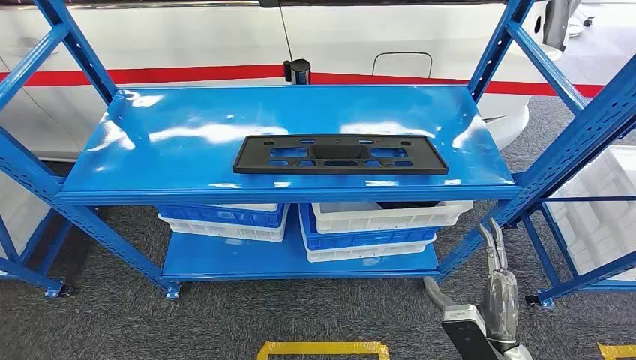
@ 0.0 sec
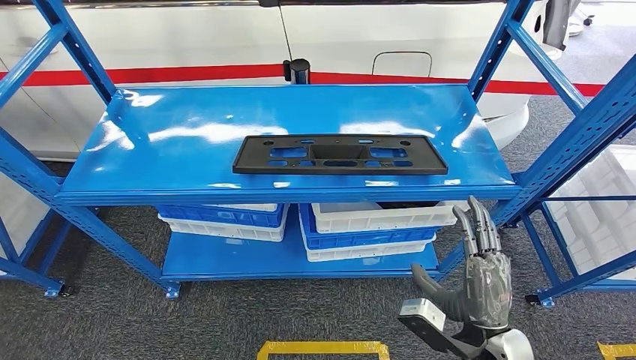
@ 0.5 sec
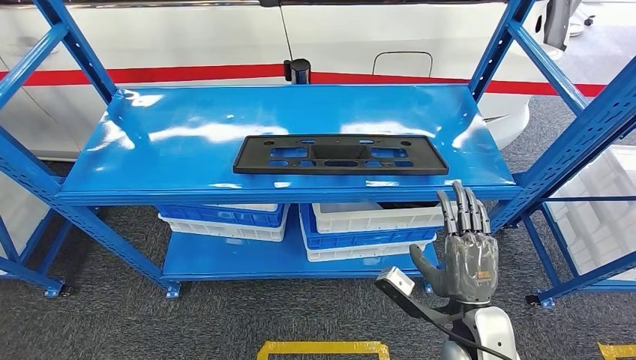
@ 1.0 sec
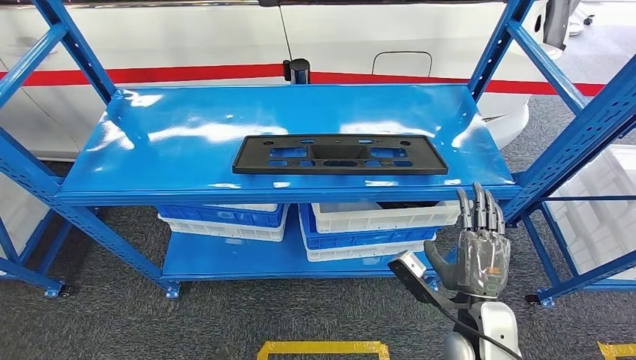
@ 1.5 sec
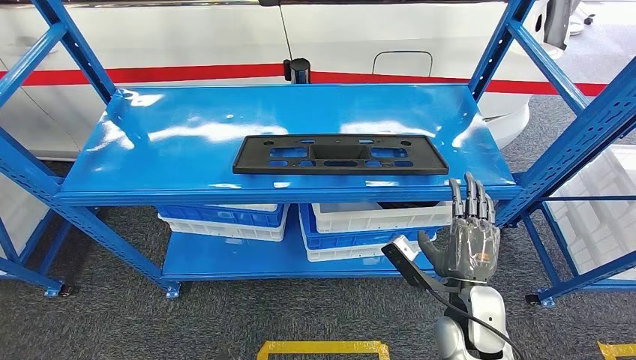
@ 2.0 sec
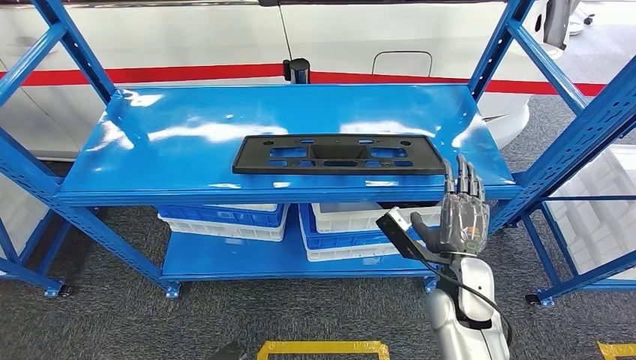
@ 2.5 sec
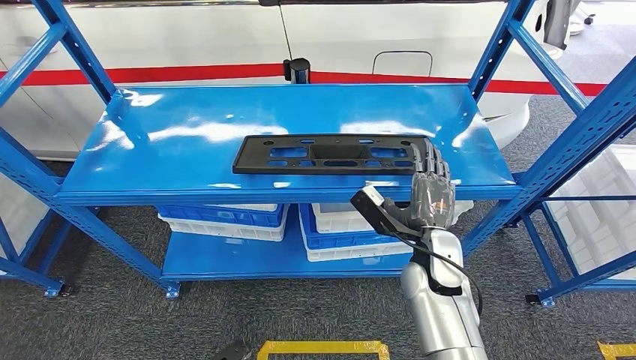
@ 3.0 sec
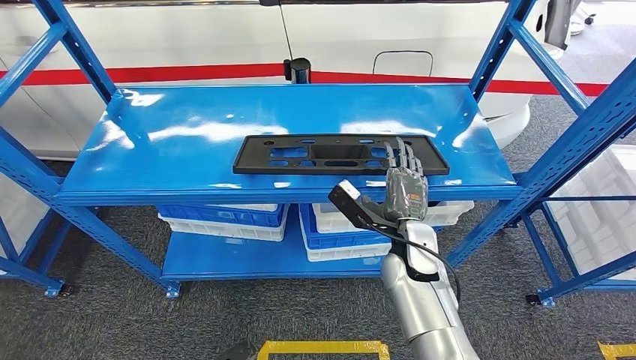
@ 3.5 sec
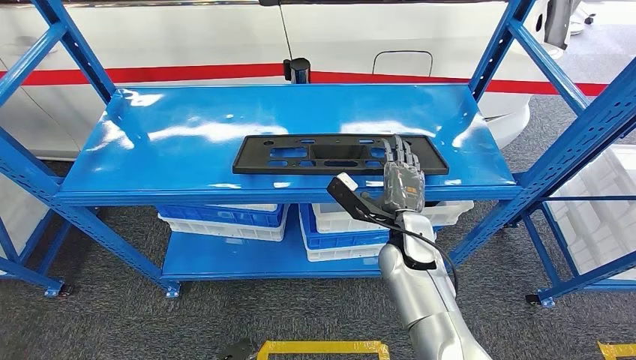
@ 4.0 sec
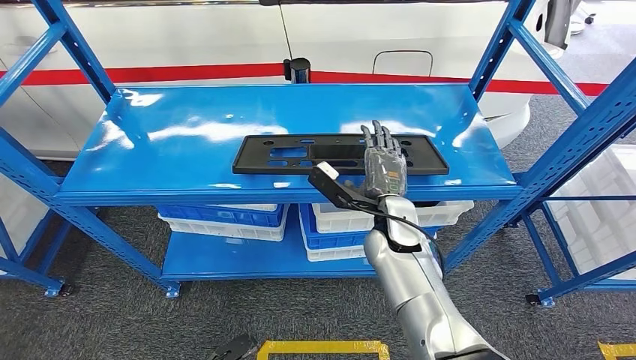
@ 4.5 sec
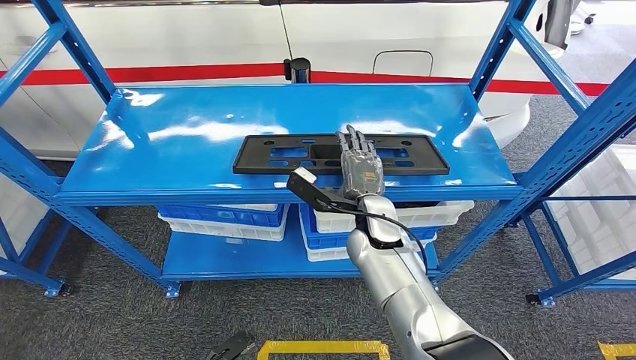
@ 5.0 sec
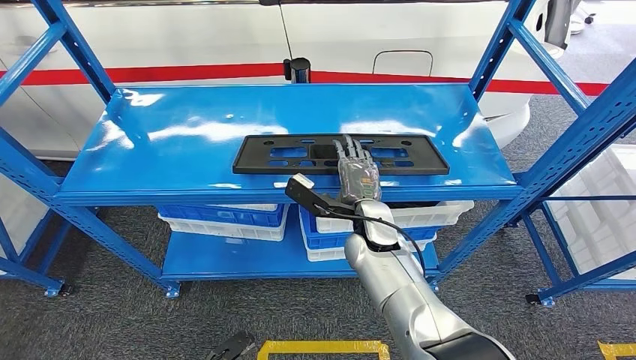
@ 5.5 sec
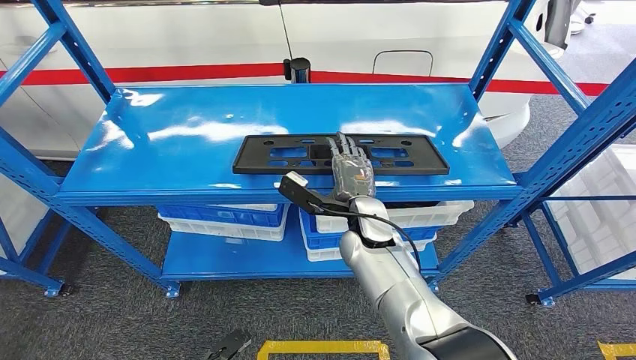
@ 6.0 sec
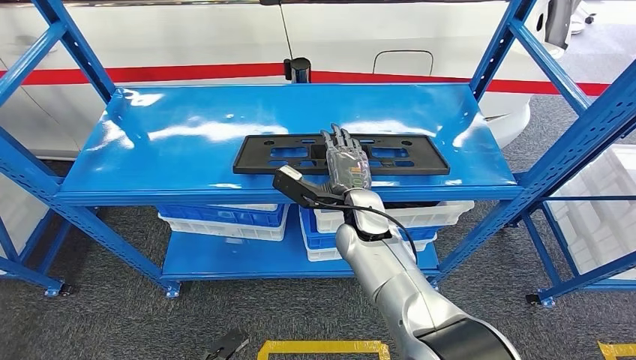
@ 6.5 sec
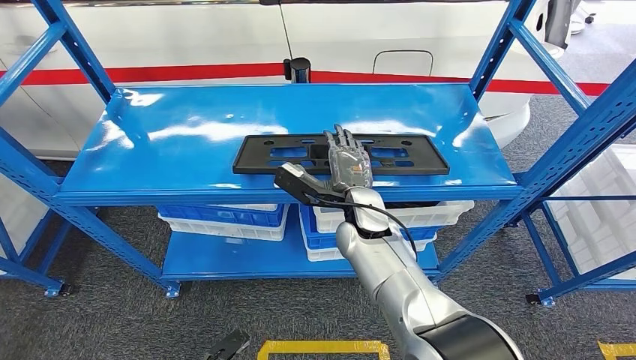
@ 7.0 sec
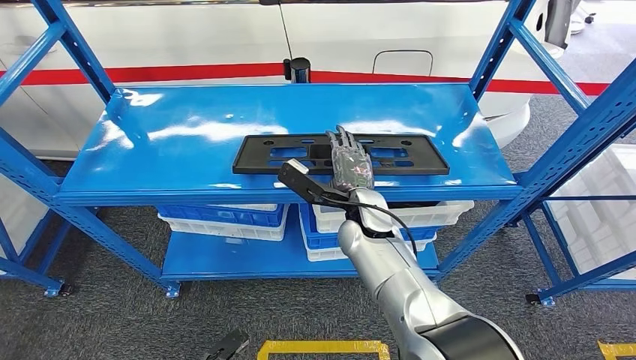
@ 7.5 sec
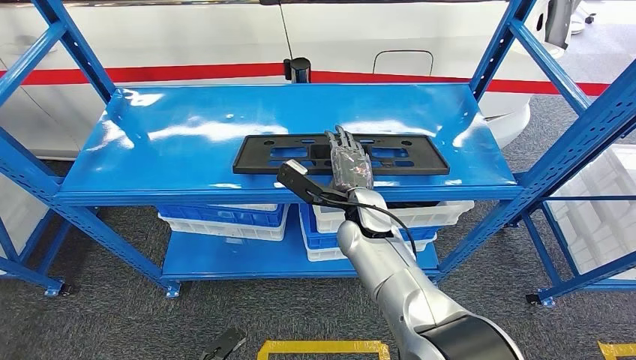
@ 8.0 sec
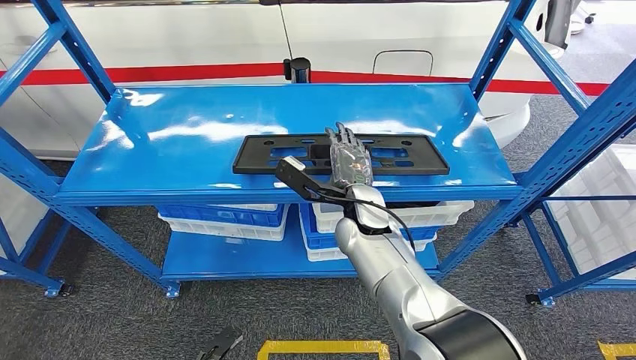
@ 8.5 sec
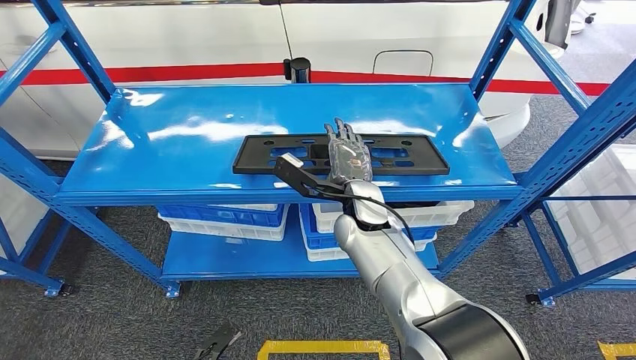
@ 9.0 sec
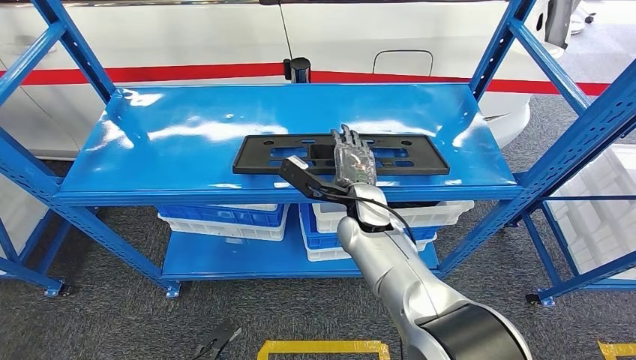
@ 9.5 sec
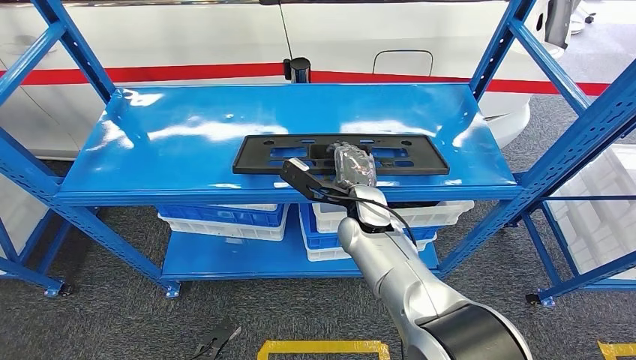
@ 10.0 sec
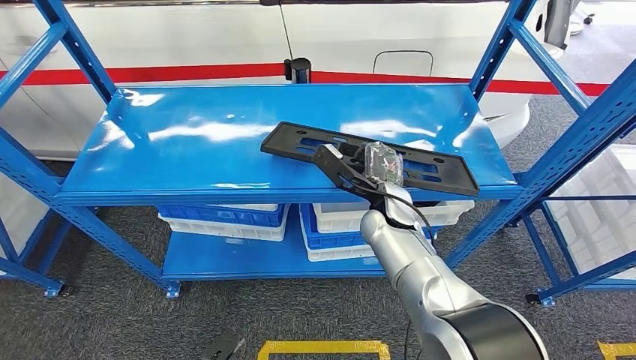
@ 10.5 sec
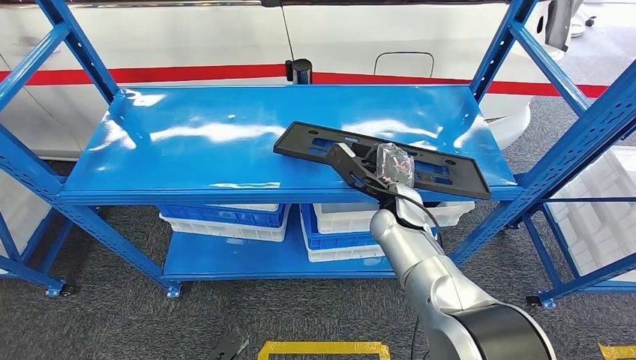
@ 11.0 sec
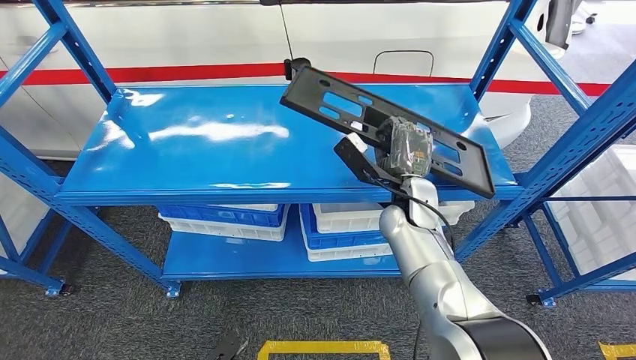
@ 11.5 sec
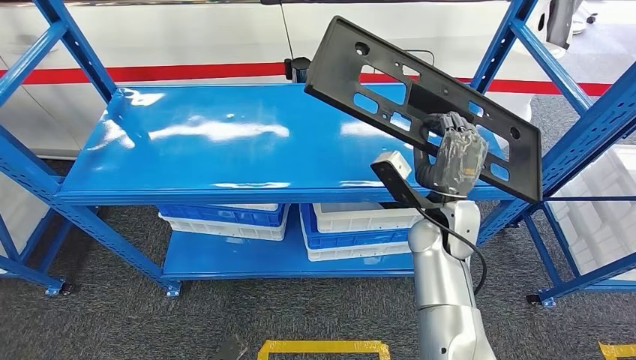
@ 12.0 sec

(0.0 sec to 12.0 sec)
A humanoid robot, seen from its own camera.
2.0 sec - 4.0 sec: The right hand shifts some 15 cm forward and to the left; the left hand goes some 5 cm forward.
4.0 sec - 6.0 sec: The right hand shifts by roughly 5 cm.
6.0 sec - 10.0 sec: The hands make only small movements.

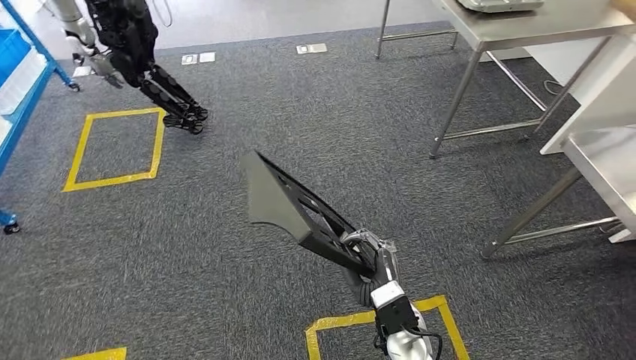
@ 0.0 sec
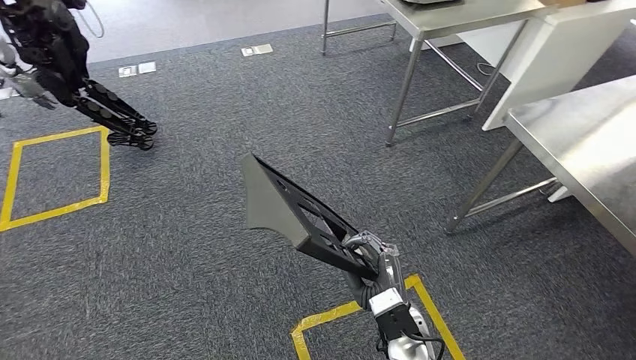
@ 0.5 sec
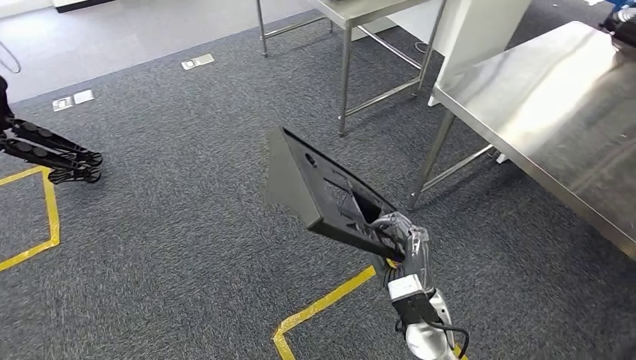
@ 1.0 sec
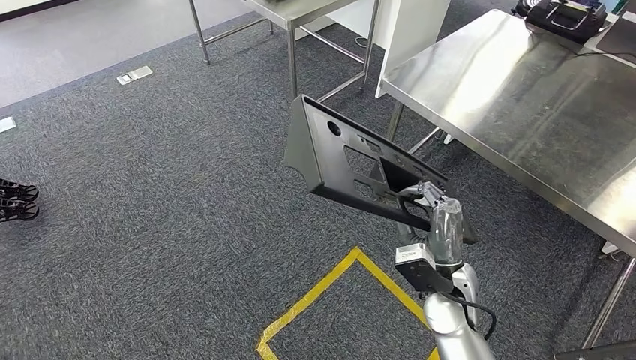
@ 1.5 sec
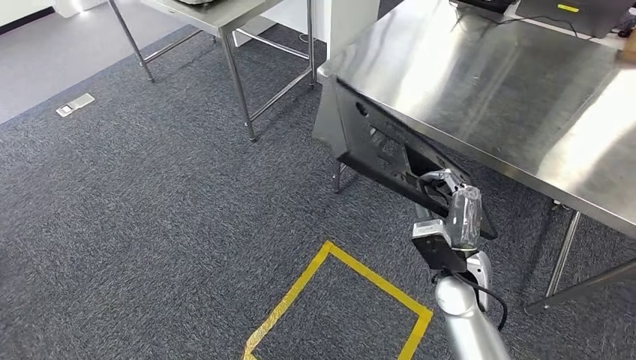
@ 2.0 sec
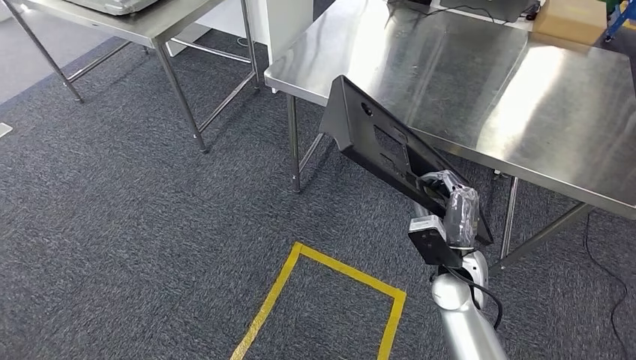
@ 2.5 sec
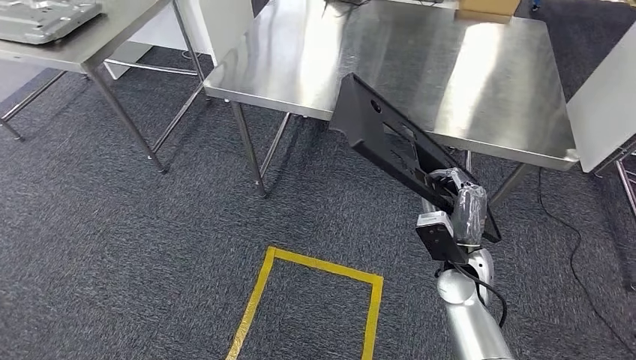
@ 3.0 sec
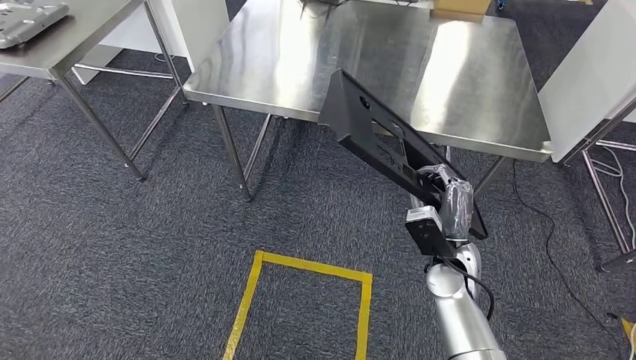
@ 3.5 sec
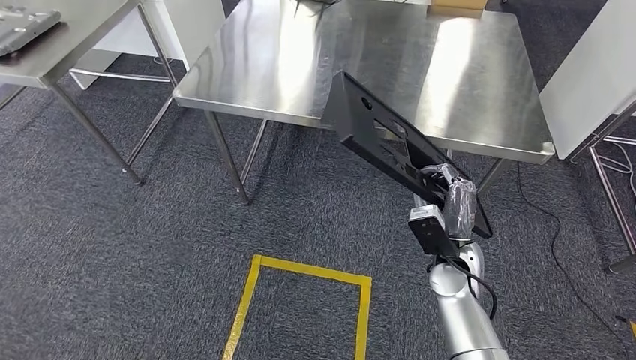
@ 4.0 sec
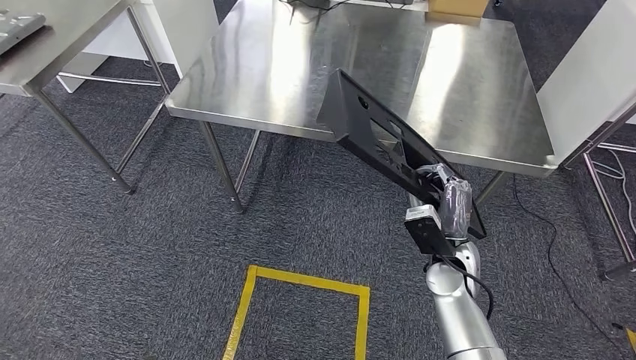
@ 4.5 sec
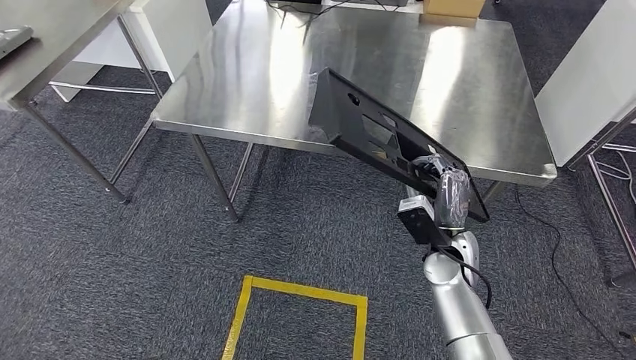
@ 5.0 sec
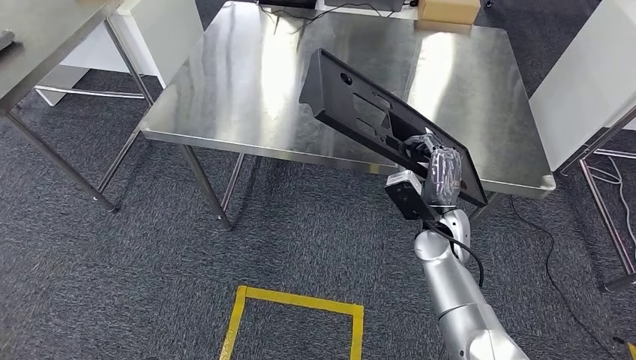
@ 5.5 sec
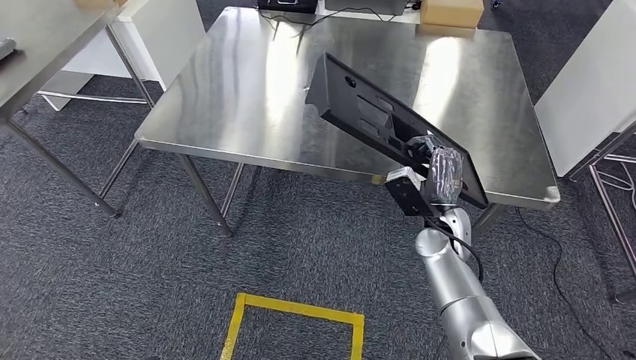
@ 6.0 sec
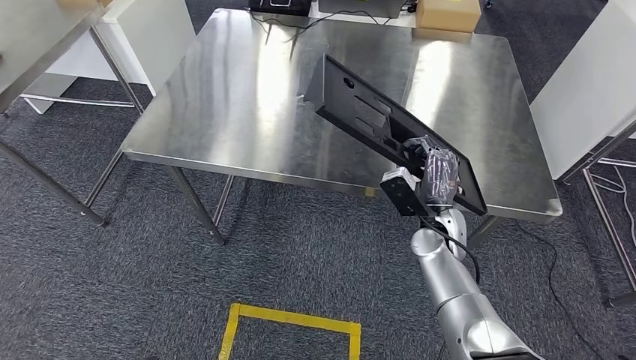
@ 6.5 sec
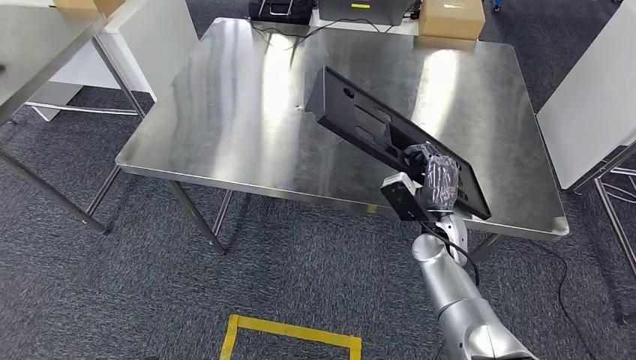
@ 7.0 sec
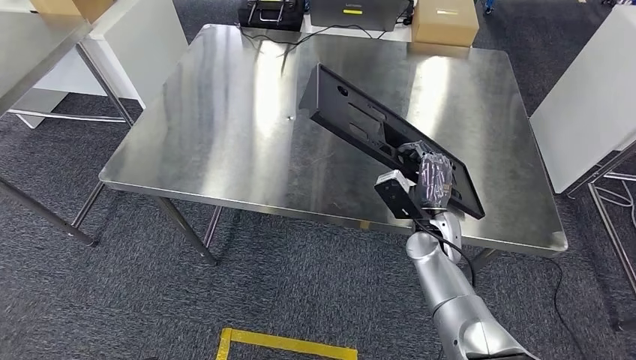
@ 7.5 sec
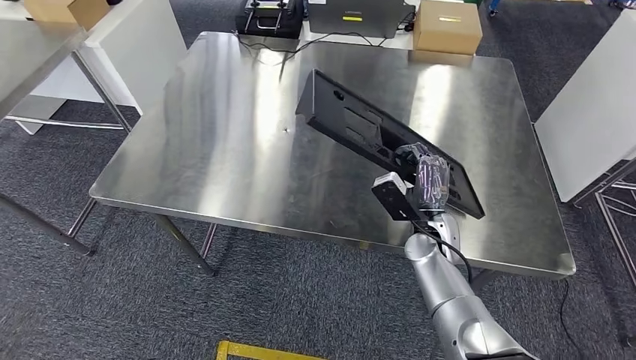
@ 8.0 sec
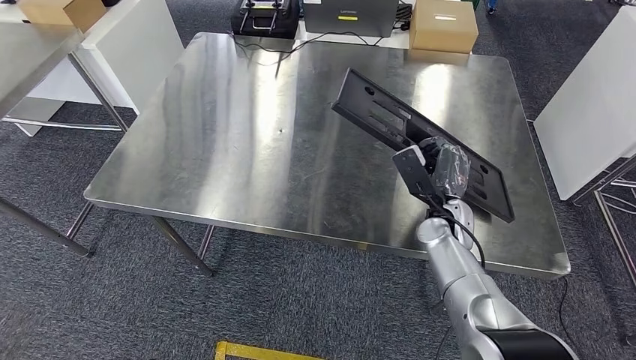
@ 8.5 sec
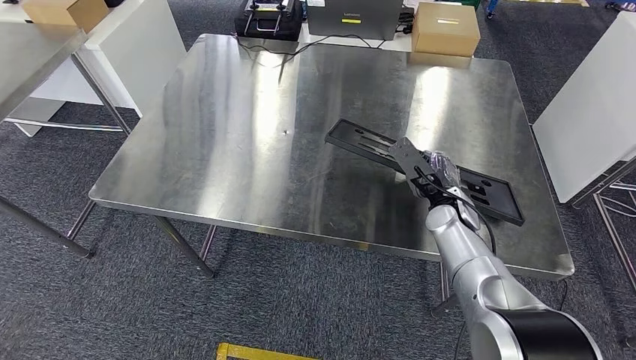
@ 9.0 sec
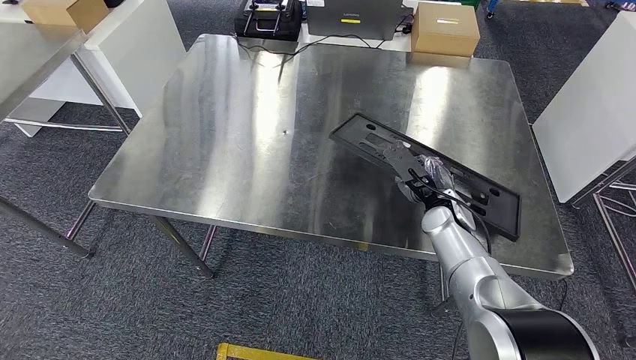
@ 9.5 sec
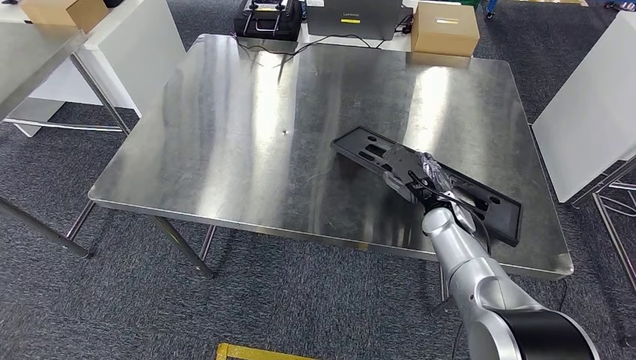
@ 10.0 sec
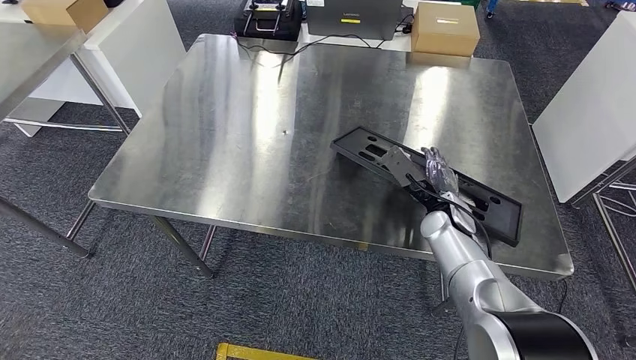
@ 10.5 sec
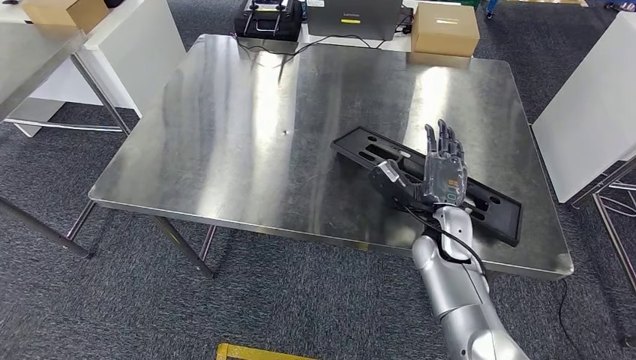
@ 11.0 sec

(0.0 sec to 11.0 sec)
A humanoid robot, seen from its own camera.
Step, 0.0 sec - 3.5 sec: Move the large material to the workbench.
9.0 sec - 11.0 sec: The right hand moves to the left and backward, about 10 cm.
